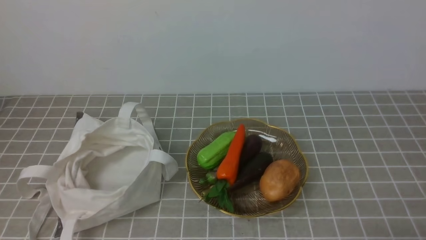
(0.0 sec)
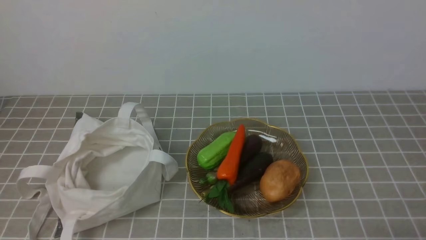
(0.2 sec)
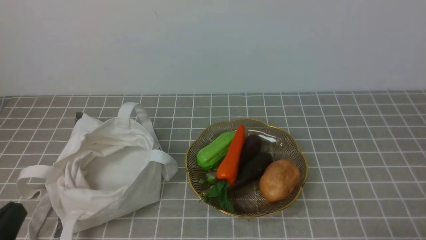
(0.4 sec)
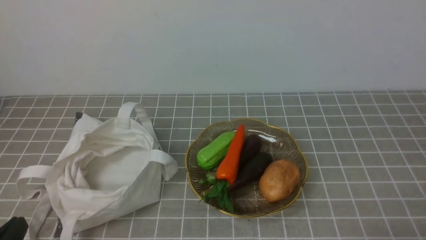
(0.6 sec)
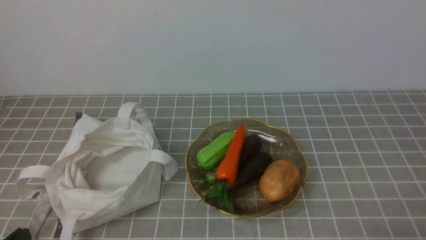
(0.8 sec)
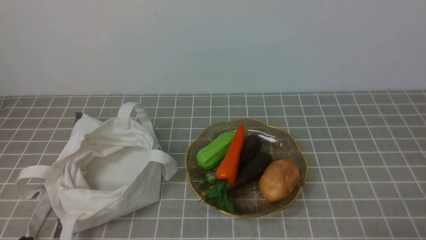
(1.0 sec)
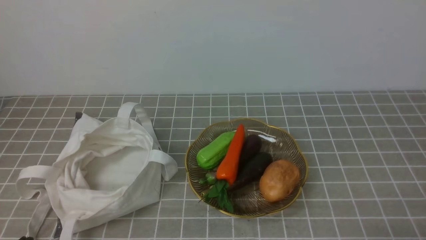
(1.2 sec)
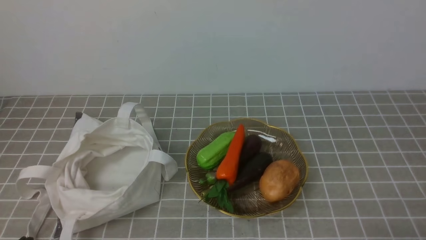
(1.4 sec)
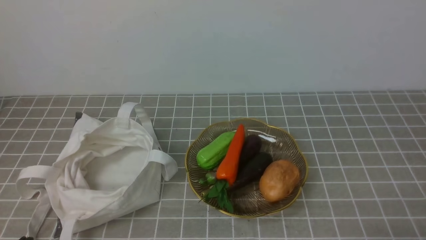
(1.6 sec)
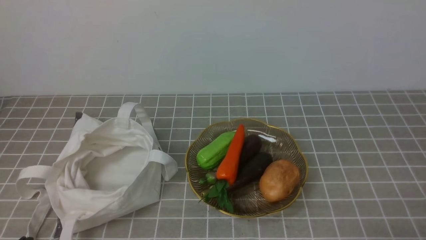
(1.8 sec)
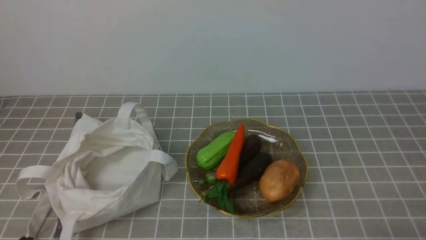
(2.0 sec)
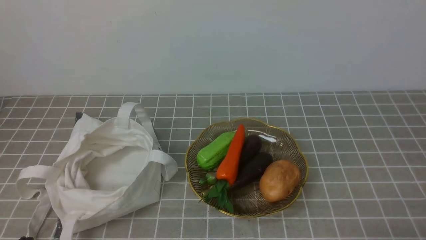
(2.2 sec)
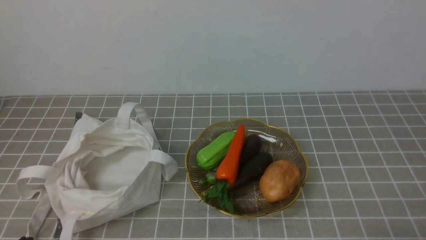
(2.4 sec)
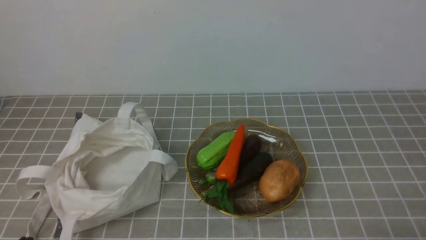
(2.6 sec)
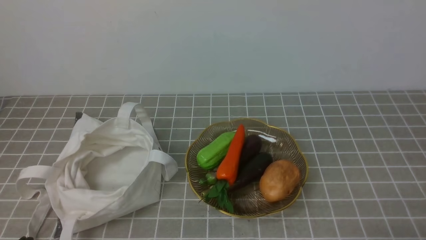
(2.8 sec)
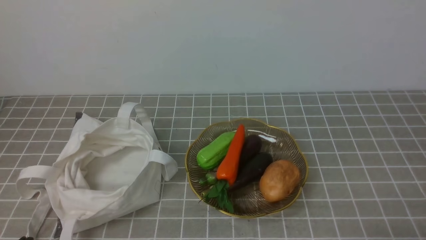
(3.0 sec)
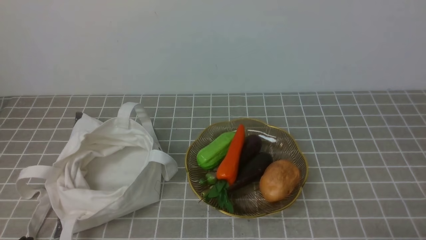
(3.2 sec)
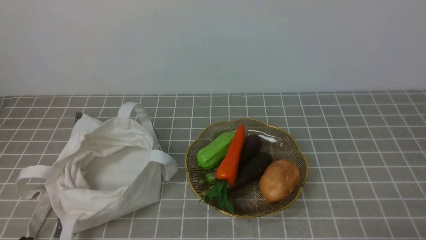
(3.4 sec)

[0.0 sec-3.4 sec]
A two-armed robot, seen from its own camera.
Task of the whole recording: take vegetables from bag on grey coffee tablecloth place on plate.
1.6 sec to 3.4 sec: The two grippers keep their place.

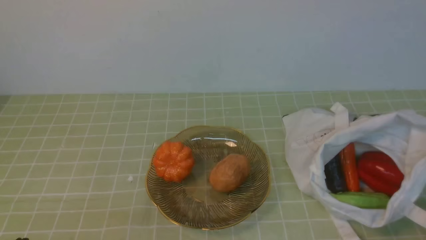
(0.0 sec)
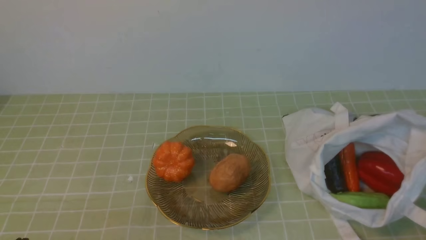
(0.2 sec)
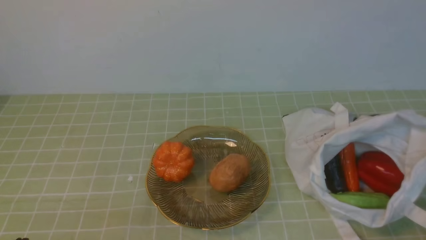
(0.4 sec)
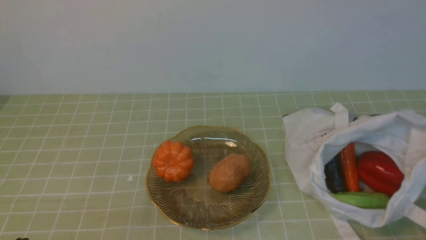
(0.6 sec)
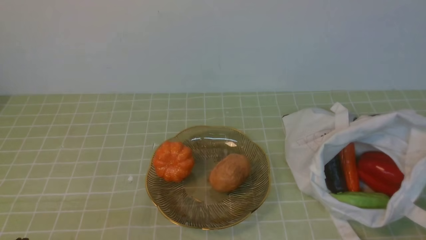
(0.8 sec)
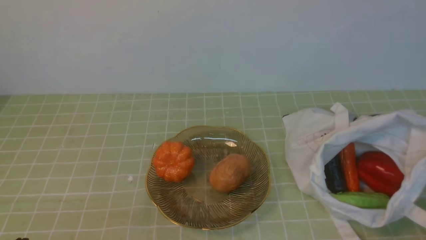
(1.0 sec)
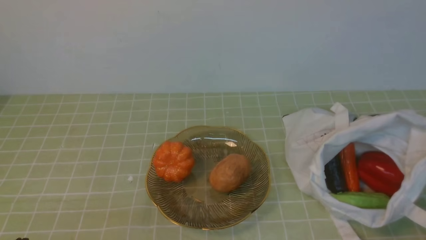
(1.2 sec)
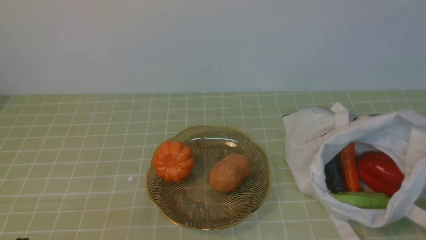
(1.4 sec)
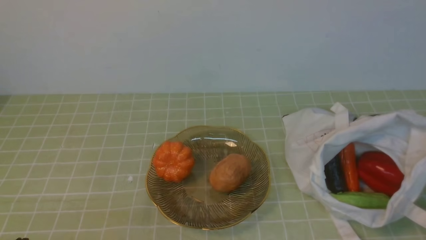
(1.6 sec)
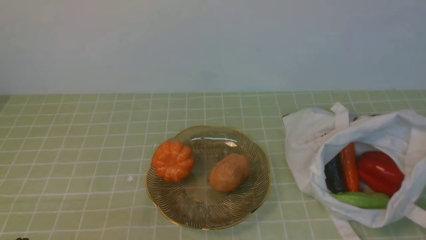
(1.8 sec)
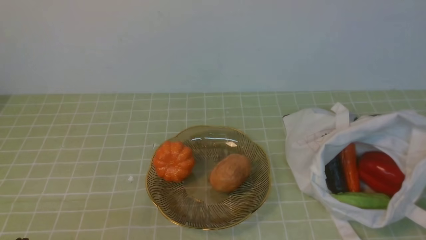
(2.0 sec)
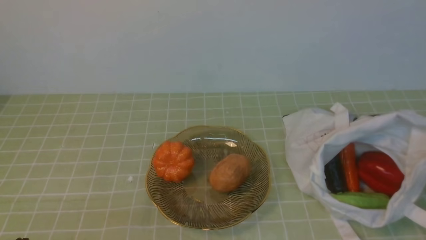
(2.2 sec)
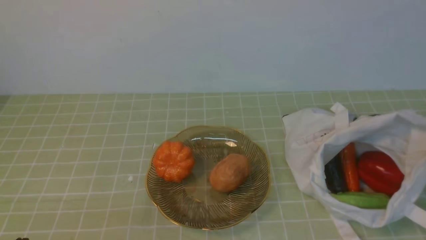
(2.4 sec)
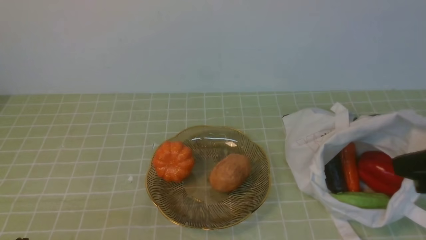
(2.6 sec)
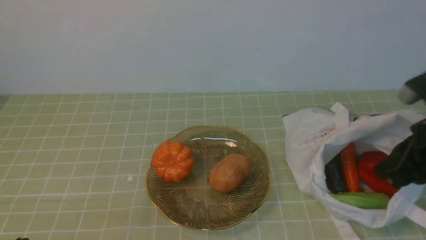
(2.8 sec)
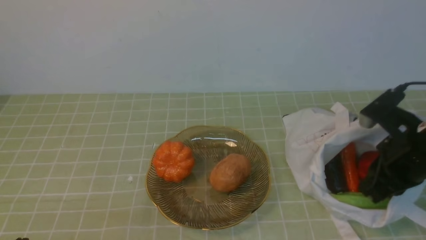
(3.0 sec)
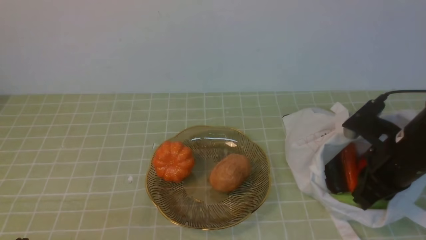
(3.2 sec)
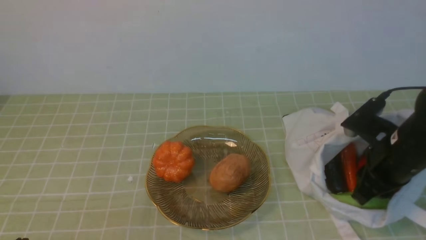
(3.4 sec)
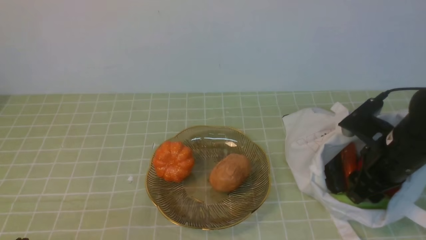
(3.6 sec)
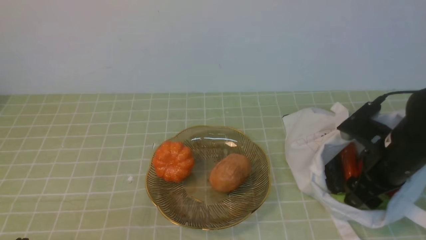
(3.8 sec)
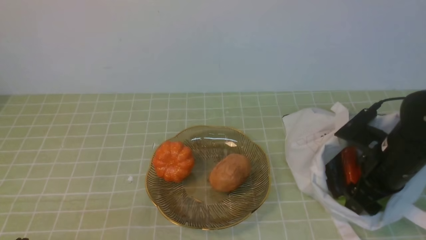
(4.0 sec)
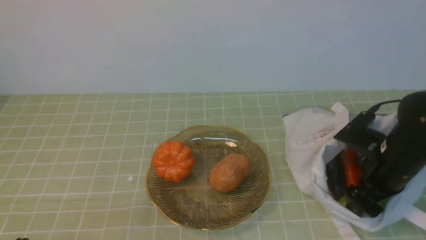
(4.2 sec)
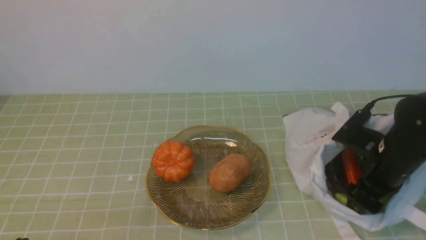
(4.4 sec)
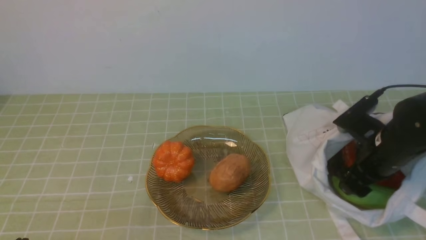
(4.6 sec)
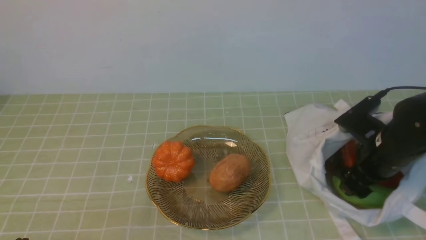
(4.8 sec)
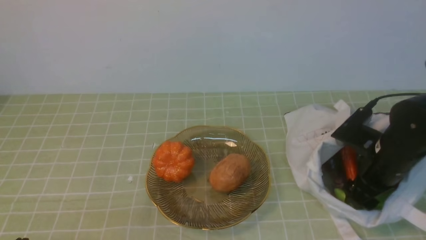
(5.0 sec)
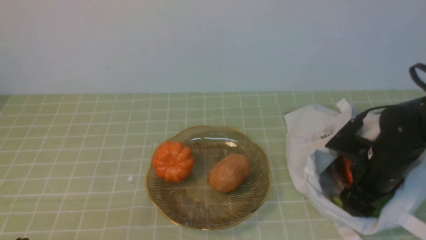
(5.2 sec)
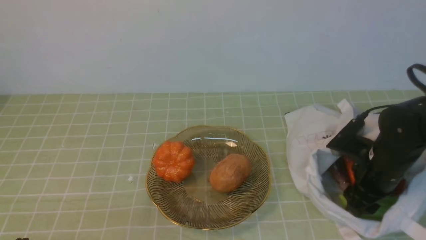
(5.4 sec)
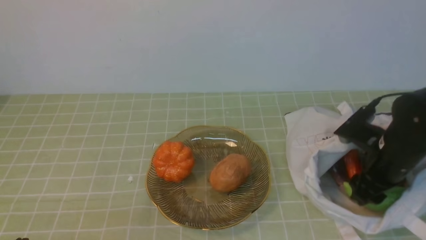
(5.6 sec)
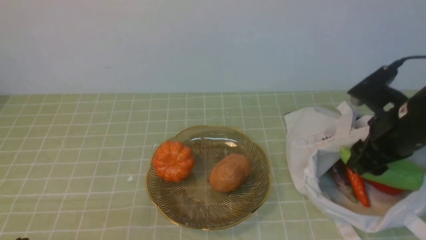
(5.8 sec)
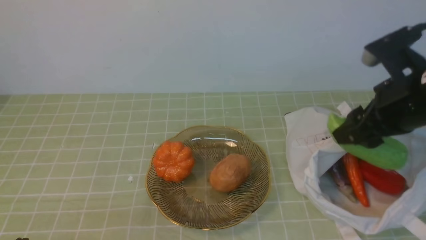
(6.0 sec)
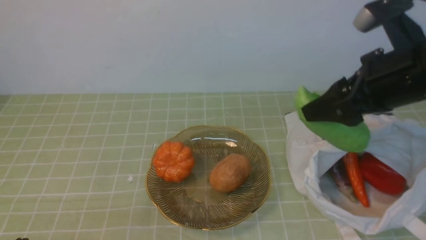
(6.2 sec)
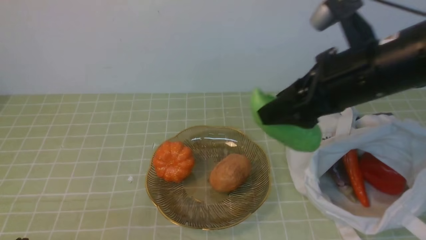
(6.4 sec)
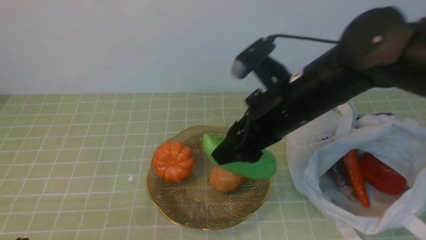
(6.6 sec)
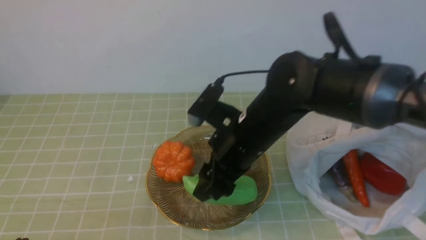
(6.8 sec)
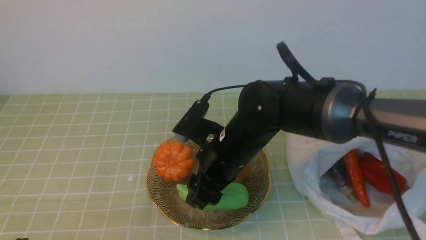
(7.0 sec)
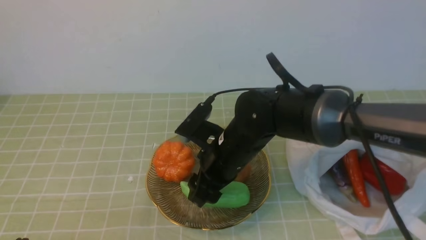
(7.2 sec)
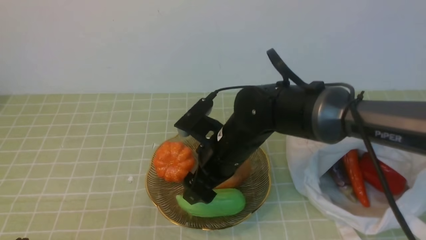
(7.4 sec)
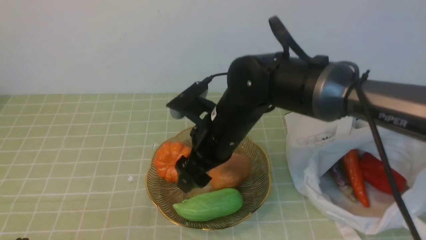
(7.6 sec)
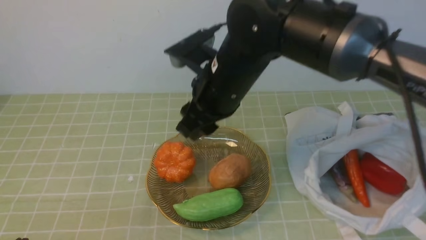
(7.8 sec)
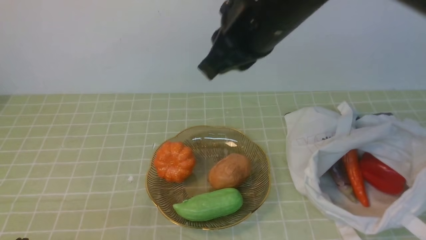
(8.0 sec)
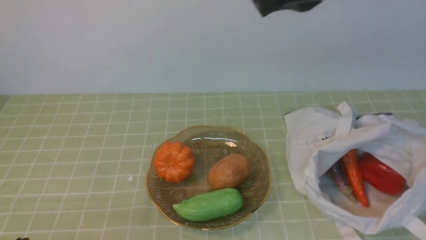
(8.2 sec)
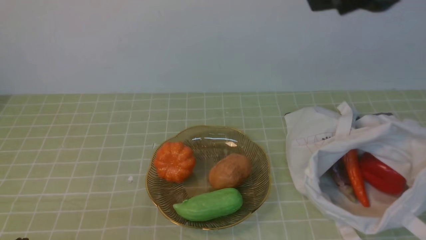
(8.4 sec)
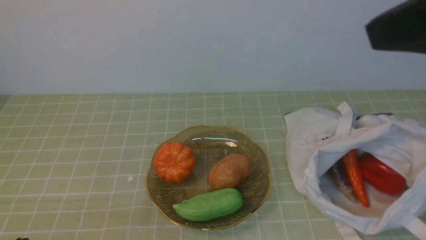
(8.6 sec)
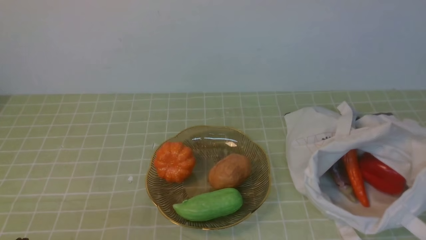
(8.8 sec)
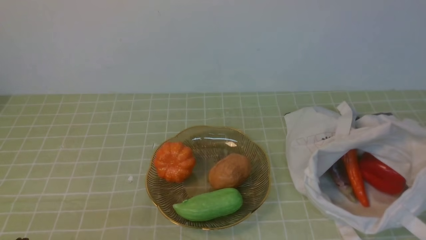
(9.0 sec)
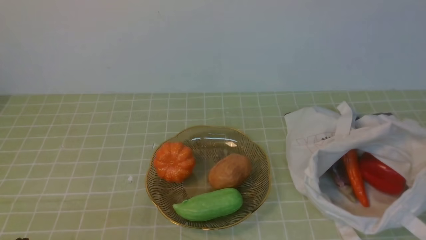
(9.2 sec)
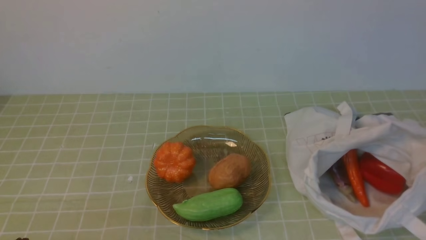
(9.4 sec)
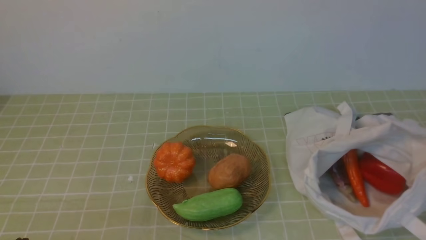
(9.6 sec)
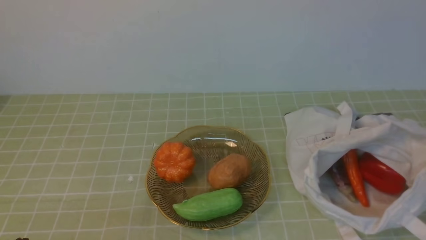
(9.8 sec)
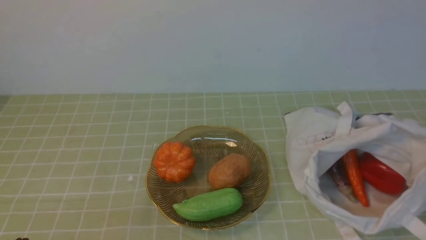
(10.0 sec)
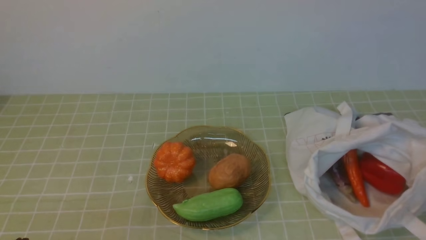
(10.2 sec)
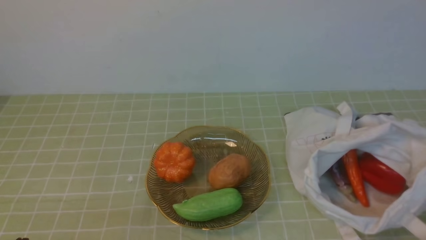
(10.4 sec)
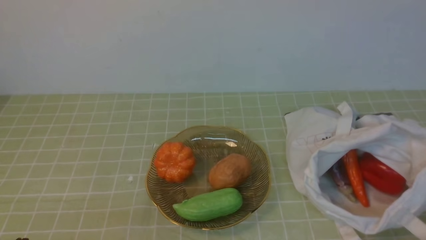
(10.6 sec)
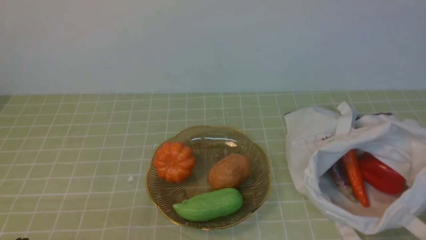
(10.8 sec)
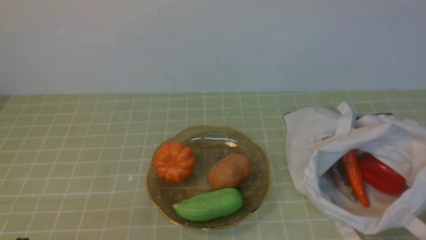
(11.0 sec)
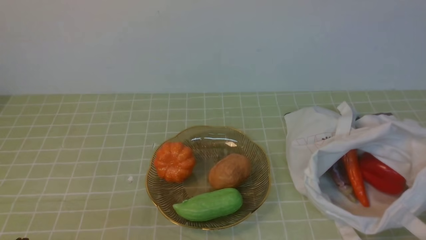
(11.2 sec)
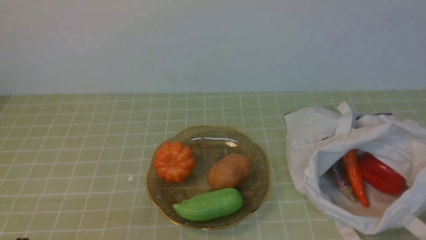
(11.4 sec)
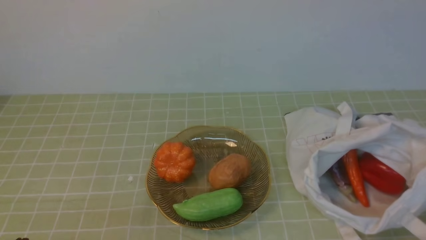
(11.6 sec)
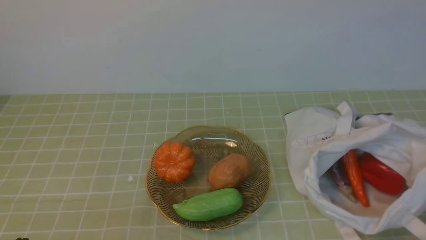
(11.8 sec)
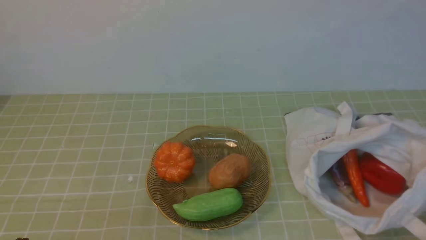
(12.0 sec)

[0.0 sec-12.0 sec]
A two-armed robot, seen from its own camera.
Task of the whole recording: take vegetables from bag on green coffee tablecloth place on plate.
Step, 0.0 sec to 4.2 sec: Grasp the bitter melon with right gripper.
Step, 4.6 sec to 7.4 sec: Place the bitter melon on the plate with right gripper.
1.6 sec to 3.0 sec: The right gripper moves forward, approximately 20 cm.
3.0 sec to 4.4 sec: The right gripper shifts roughly 5 cm downward, and opens.
4.4 sec to 6.0 sec: The right gripper is displaced upward by some 15 cm.
6.0 sec to 7.6 sec: The right gripper shifts about 20 cm to the left.
7.6 sec to 9.0 sec: The right gripper heads to the right, backward and upward, covering some 40 cm, and closes.
